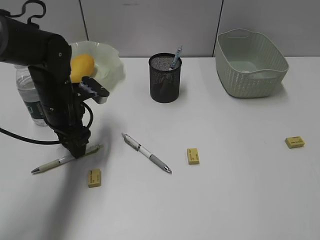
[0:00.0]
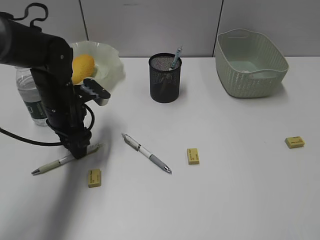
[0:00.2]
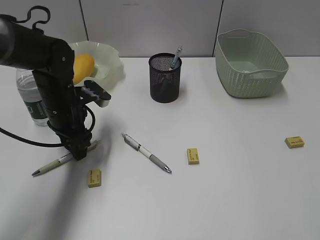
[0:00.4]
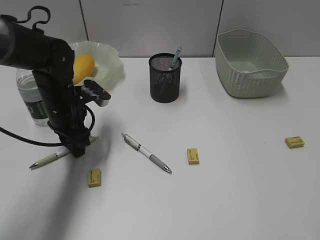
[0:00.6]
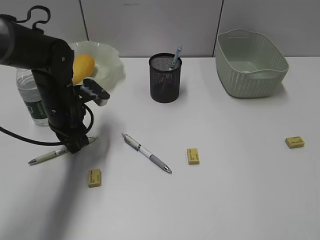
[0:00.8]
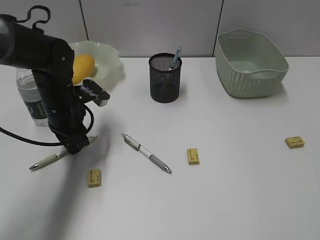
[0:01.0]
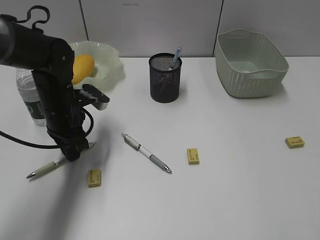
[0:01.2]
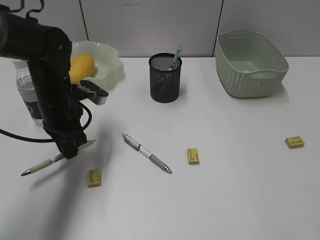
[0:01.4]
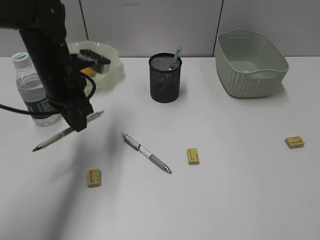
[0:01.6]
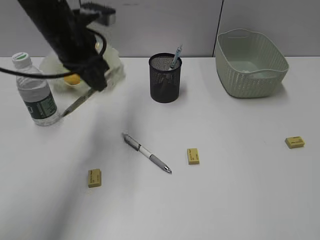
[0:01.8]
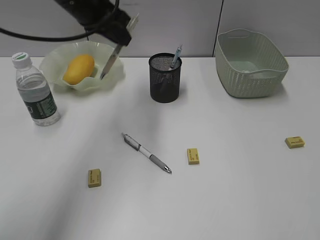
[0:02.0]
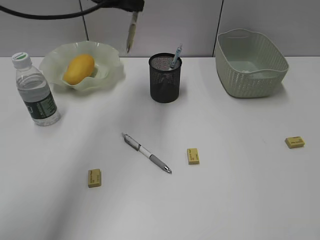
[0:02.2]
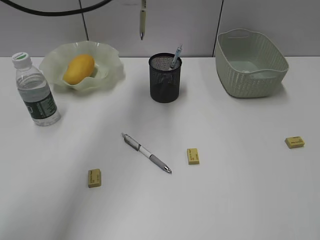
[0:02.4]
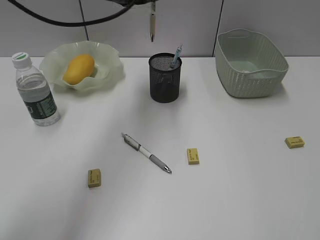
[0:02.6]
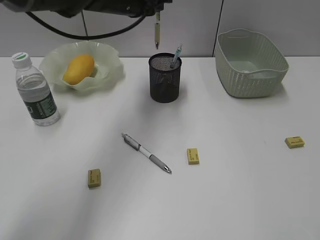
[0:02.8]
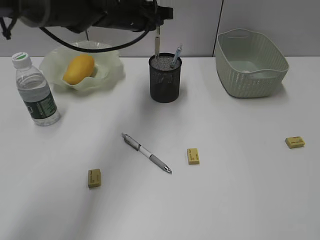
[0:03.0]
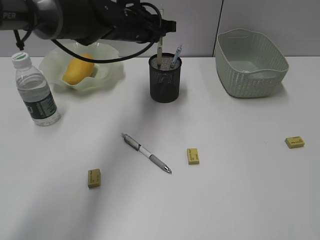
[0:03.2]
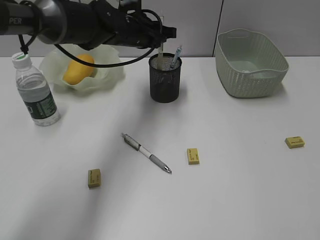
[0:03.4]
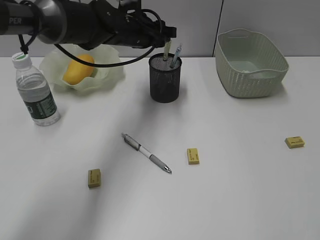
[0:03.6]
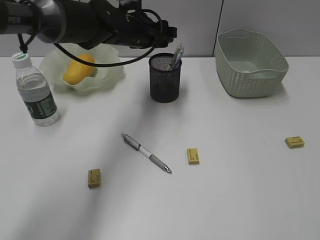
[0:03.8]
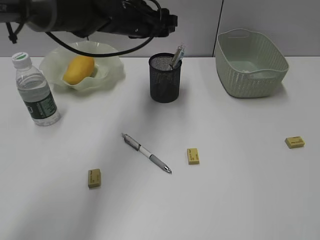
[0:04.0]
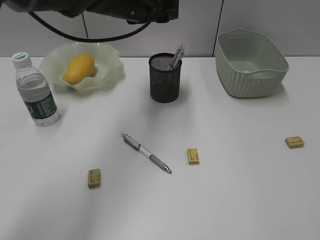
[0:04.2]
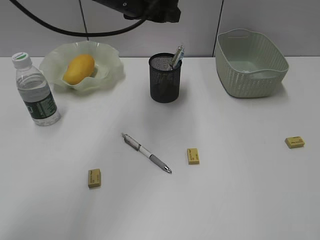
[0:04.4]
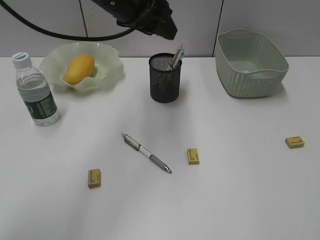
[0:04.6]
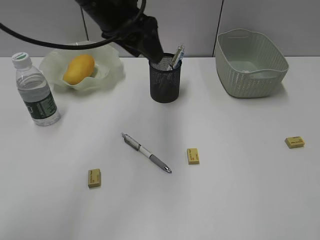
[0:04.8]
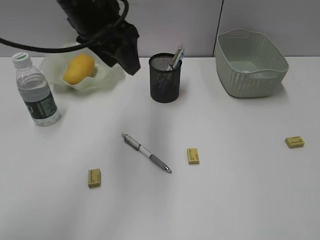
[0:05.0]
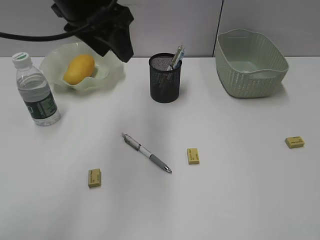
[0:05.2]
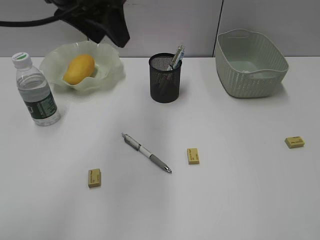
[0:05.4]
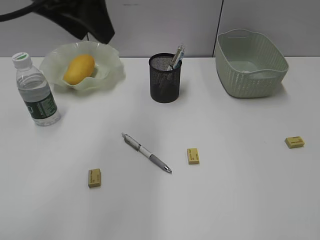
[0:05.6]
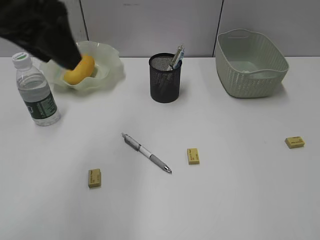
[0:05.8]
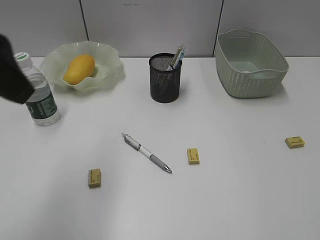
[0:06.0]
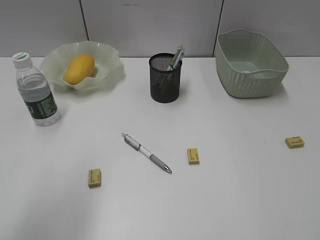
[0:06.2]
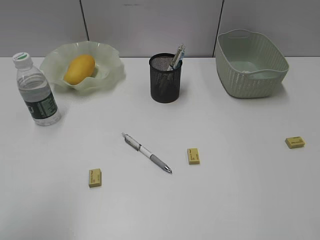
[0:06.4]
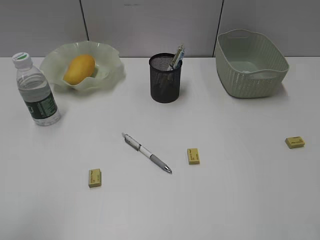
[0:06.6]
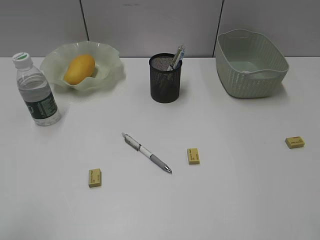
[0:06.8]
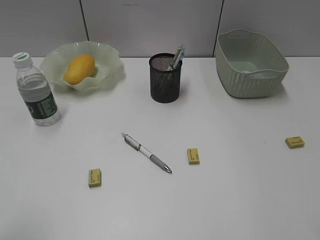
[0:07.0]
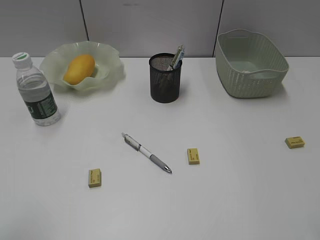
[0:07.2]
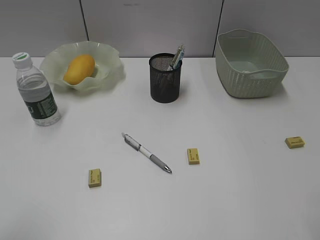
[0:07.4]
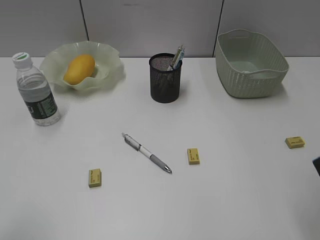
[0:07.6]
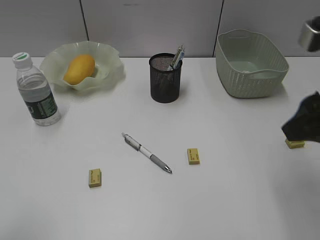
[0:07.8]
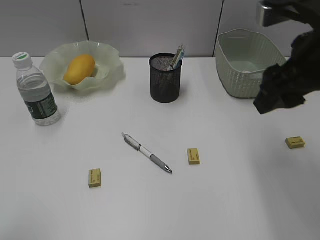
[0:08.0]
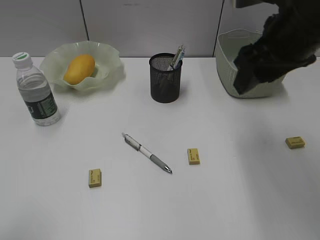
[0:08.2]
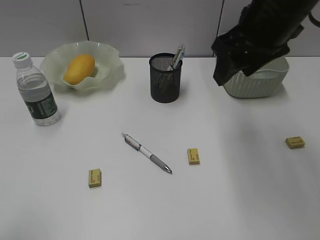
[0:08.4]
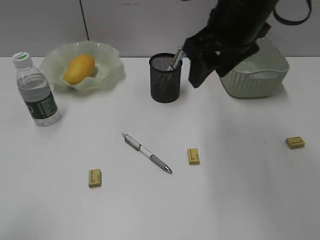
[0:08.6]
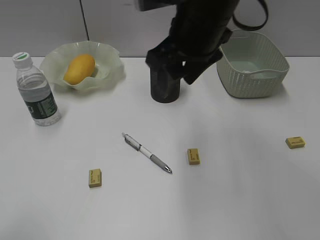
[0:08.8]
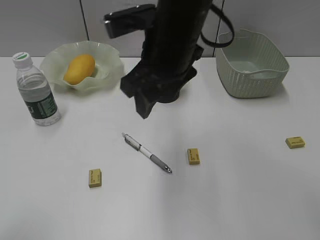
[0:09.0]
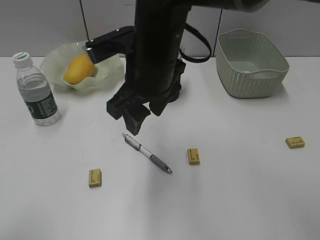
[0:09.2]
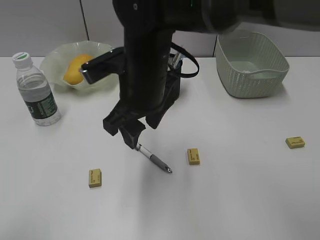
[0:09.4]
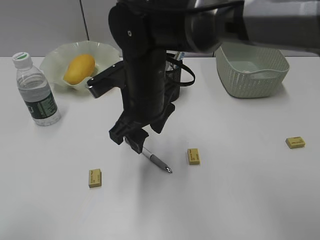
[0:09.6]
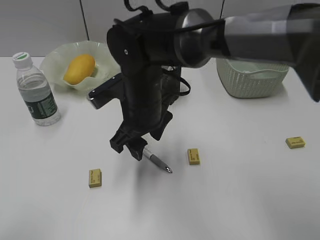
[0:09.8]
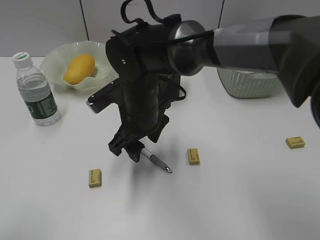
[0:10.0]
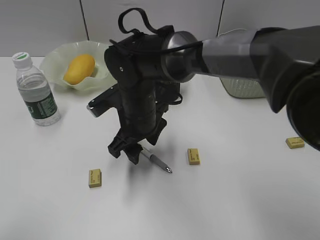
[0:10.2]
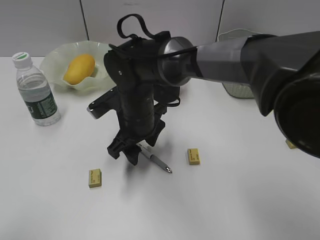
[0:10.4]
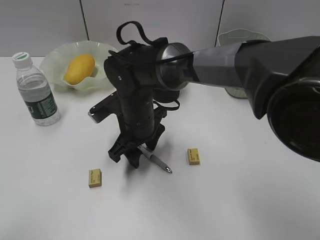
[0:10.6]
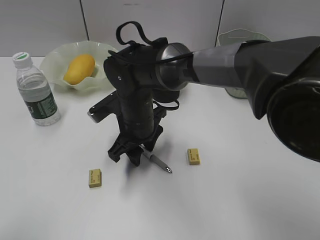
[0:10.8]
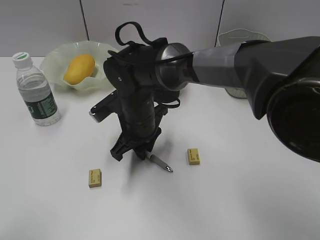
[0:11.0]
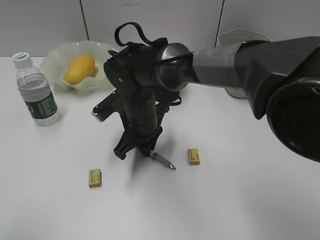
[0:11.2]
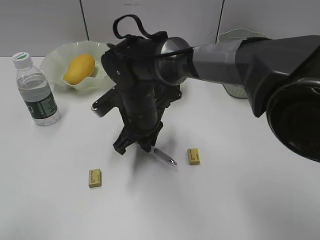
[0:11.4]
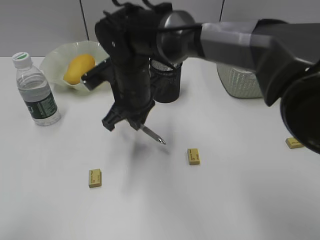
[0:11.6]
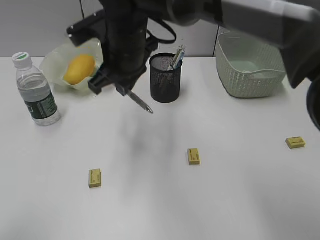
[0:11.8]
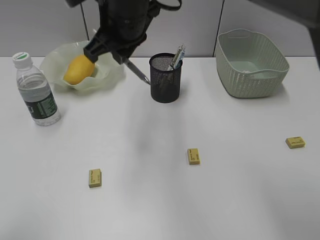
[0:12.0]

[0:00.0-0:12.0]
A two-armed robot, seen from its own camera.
Step, 0:01.2 to 0:03.8: Place the yellow pen in pen holder with left gripper.
Step, 0:04.0 to 0:11.2: Grasp the gray pen with right gripper.
0:00.0 to 0:01.6: The left gripper travels upward by some 5 cm, and closes its fingers.
0:01.6 to 0:03.0: The left gripper travels to the right, forward and upward by some 15 cm.
0:03.0 to 0:04.4: The left gripper ends up roughly 5 cm from where it was, and opens.
0:04.4 to 0:06.0: The left gripper is displaced backward and to the left by some 25 cm.
0:06.0 to 0:07.6: The left gripper moves backward, to the left and downward, about 20 cm. The right gripper moves forward, some 5 cm.
0:07.6 to 0:09.0: The right gripper shifts about 30 cm to the left and forward.
0:09.0 to 0:10.4: The right gripper shifts about 15 cm downward.
0:10.4 to 0:12.0: The right gripper moves upward, approximately 15 cm, and closes up.

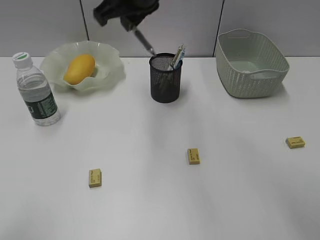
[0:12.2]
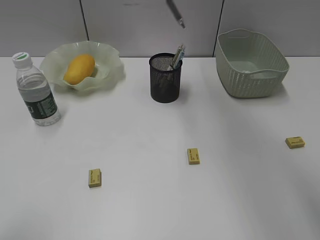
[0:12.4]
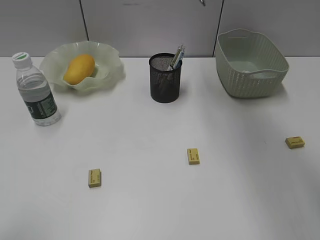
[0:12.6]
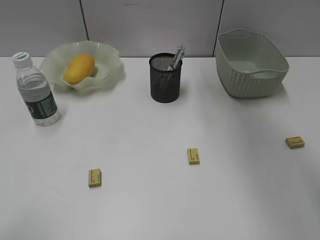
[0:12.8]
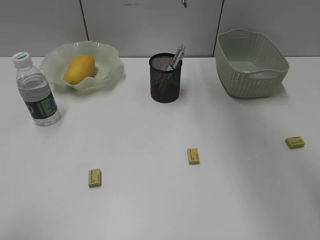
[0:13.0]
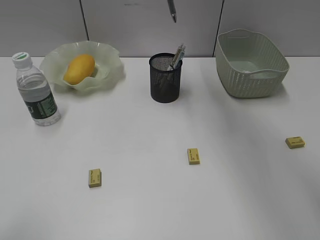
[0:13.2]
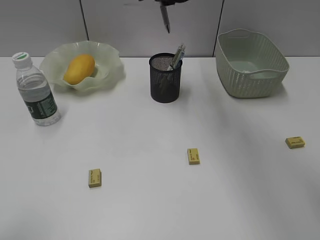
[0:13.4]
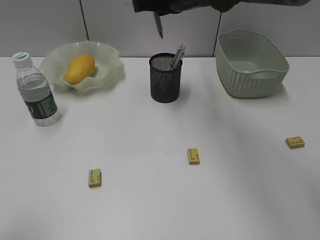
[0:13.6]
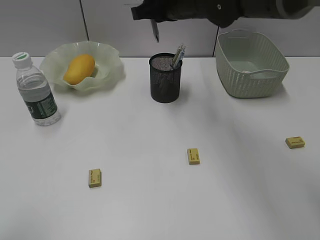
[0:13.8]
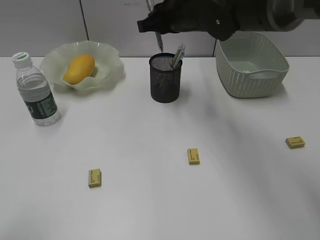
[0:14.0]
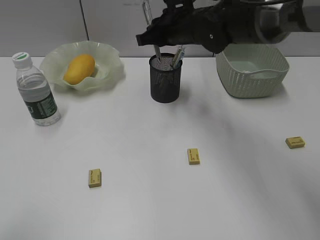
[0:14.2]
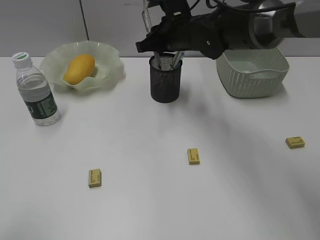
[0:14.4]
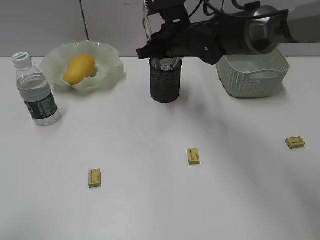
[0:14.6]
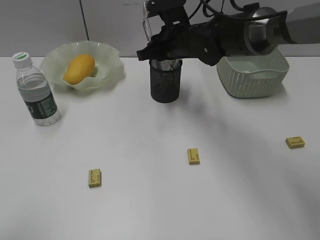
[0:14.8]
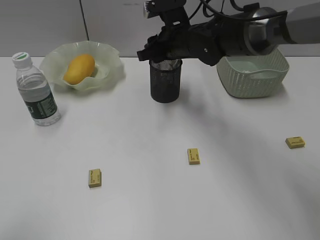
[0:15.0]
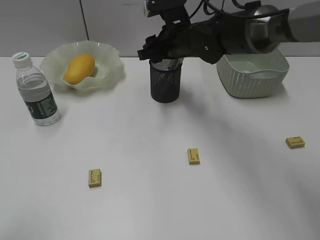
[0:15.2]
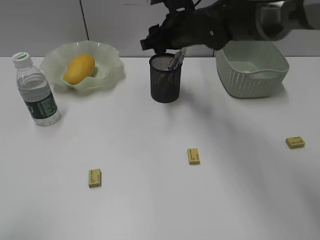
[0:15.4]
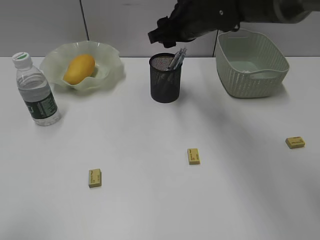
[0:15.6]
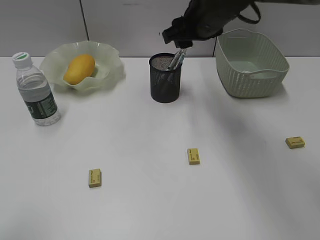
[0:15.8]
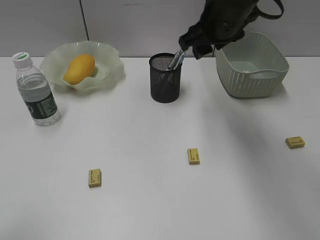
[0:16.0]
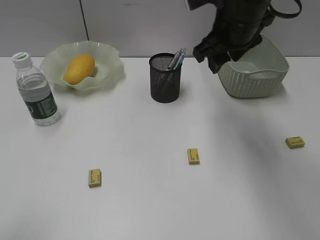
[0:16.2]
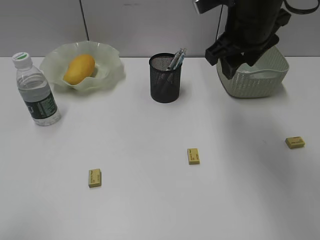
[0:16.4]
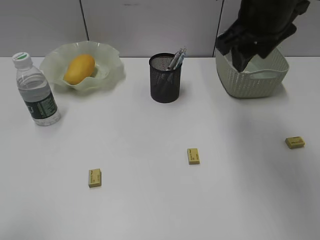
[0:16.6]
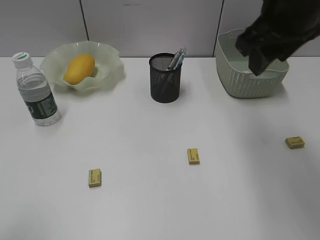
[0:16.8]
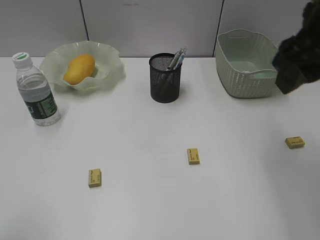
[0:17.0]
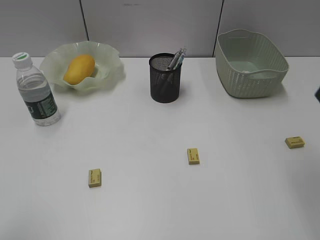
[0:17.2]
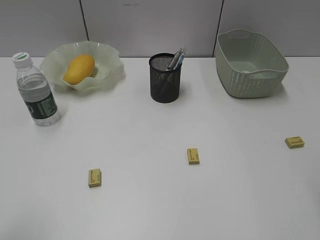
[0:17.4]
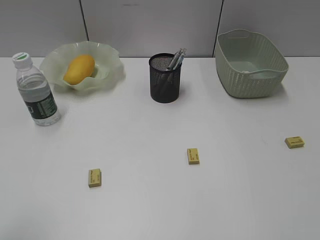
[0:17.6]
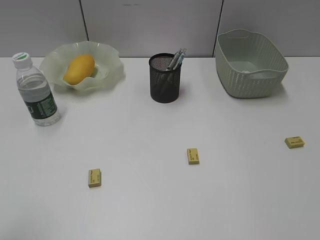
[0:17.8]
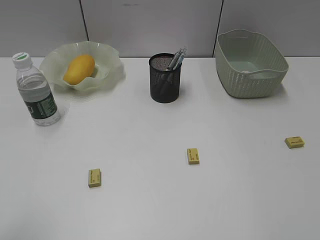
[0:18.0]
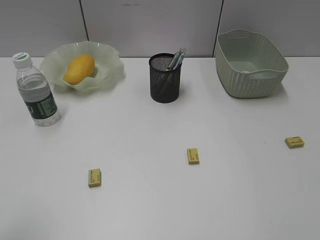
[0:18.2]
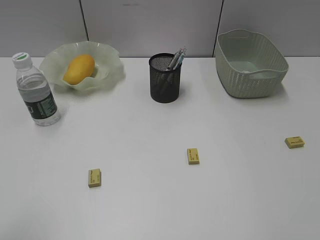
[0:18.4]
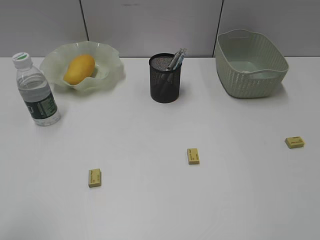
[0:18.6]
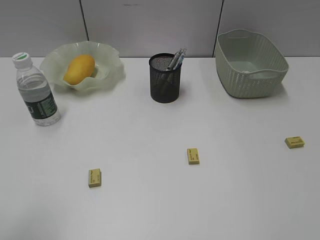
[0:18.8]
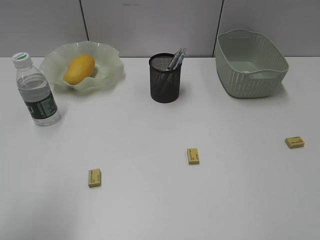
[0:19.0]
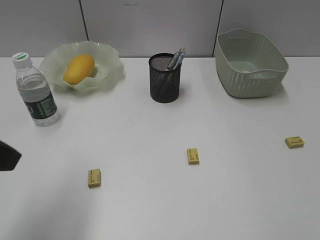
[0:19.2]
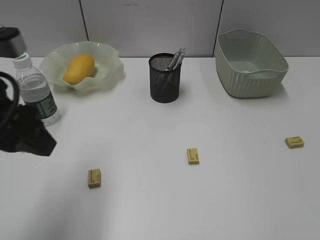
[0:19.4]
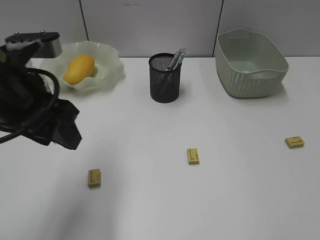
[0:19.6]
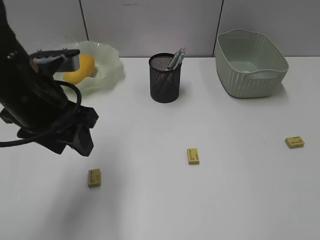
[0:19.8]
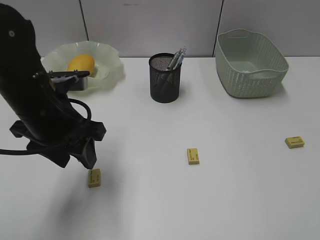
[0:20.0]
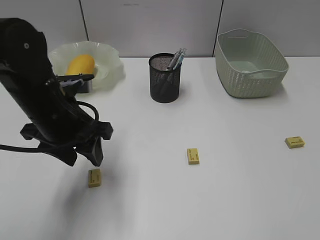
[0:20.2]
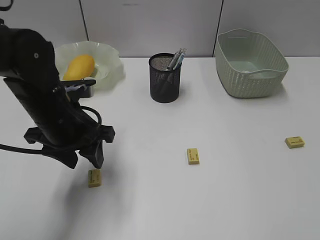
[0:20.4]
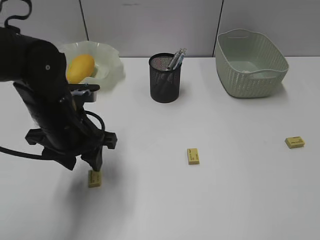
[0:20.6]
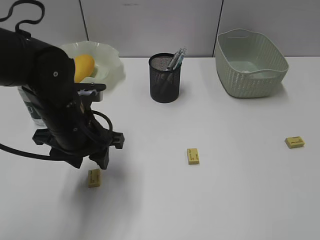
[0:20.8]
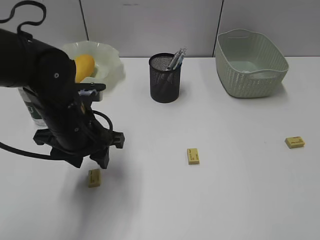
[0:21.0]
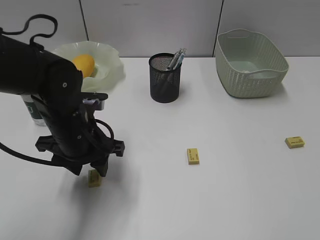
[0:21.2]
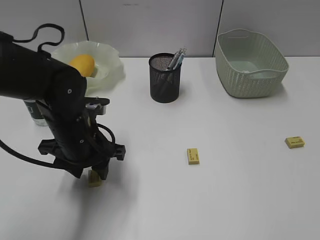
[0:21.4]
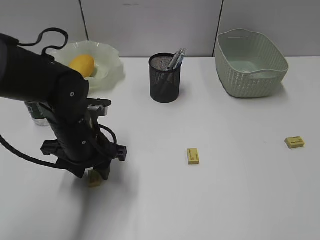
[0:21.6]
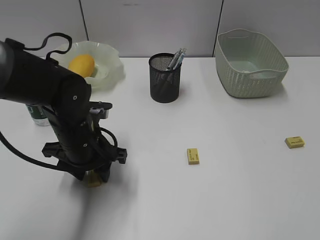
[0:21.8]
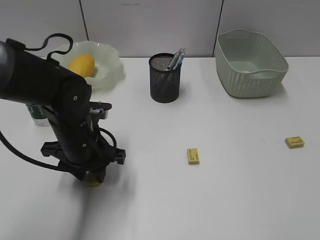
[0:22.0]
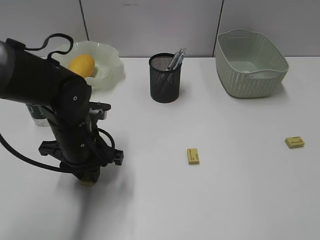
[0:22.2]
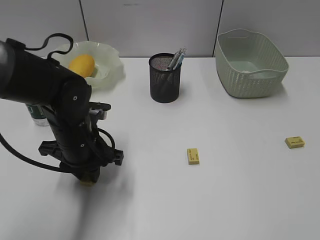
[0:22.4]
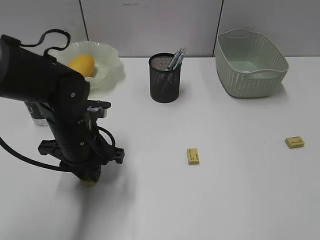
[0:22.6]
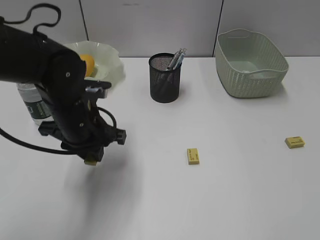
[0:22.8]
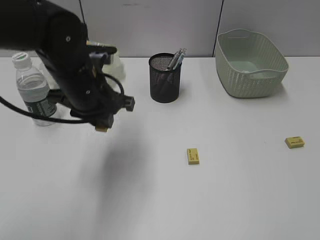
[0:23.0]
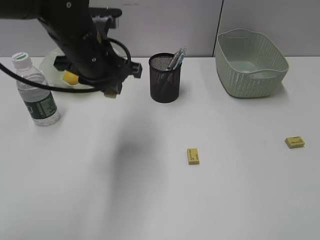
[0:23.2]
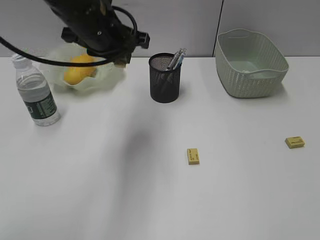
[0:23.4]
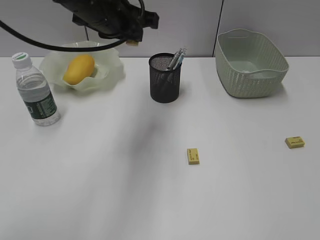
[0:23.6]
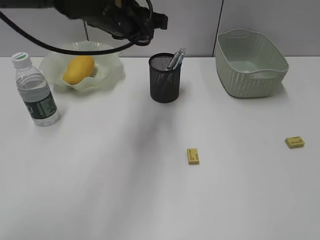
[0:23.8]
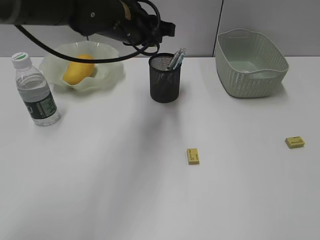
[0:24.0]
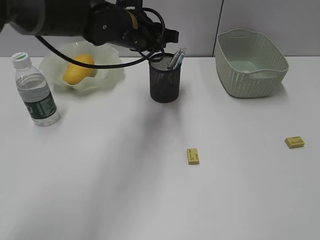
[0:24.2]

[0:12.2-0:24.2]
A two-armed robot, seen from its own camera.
Step, 0:12.2 to 0:15.0: Place the gray pen in pen holder with right gripper.
Step, 0:15.2 to 0:22.4: Grasp the eraser with left gripper.
0:12.2 to 0:13.8: The right gripper heads to the right and forward, covering roughly 10 cm.
0:13.8 to 0:15.2: The right gripper goes about 10 cm downward, and opens.
0:15.2 to 0:16.6: The right gripper heads upward, backward and to the right, covering roughly 20 cm.
0:16.6 to 0:18.2: The right gripper is displaced backward and to the right by approximately 35 cm.
0:18.2 to 0:19.8: The left gripper heads forward and to the right, covering some 25 cm.
0:19.8 to 0:21.2: The left gripper is displaced downward by about 10 cm.
0:21.2 to 0:22.6: The left gripper closes up.
0:22.6 to 0:24.2: The left gripper travels forward, upward and to the right by approximately 20 cm.
